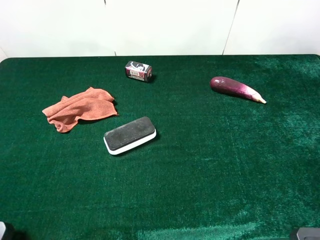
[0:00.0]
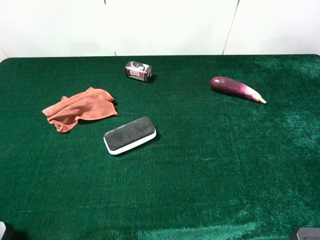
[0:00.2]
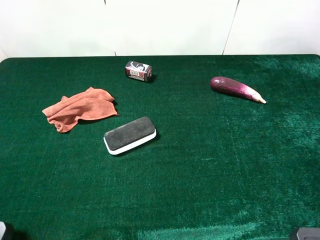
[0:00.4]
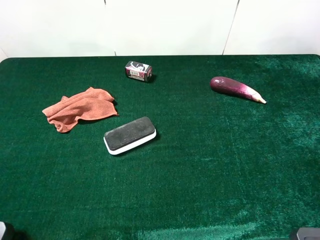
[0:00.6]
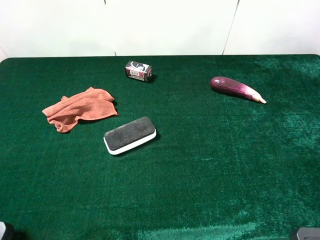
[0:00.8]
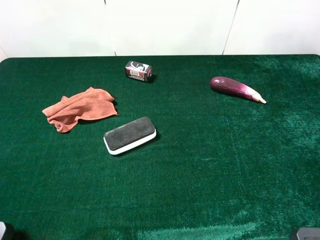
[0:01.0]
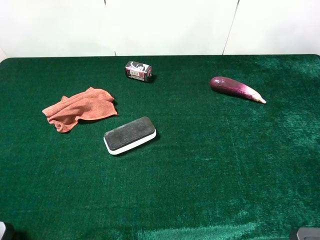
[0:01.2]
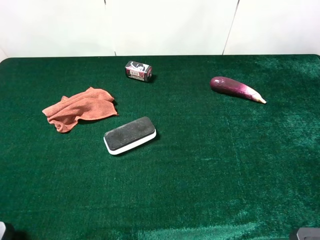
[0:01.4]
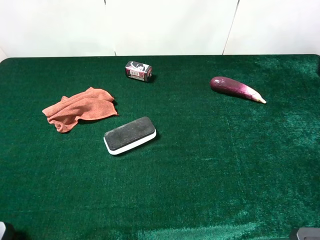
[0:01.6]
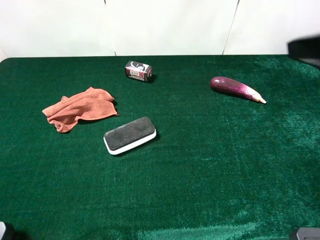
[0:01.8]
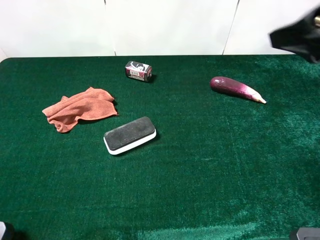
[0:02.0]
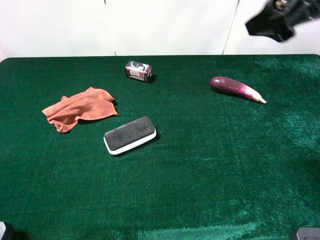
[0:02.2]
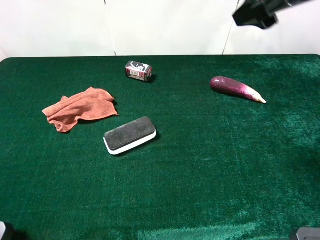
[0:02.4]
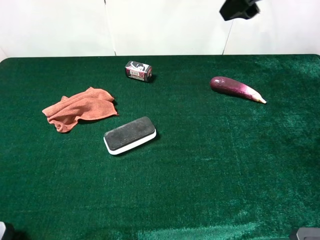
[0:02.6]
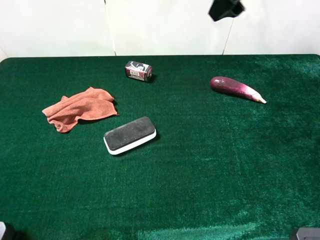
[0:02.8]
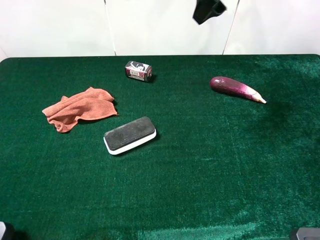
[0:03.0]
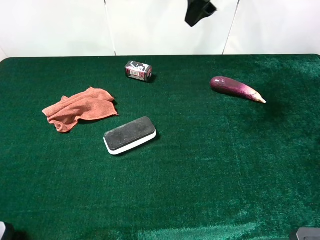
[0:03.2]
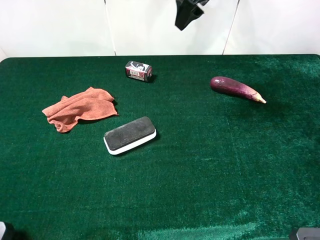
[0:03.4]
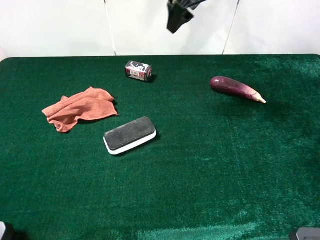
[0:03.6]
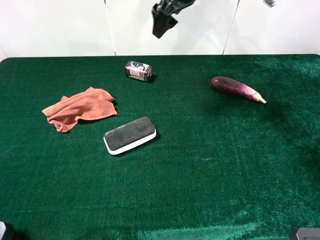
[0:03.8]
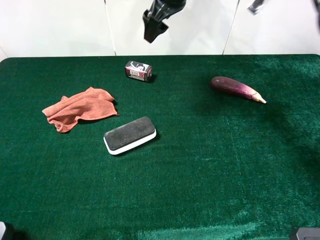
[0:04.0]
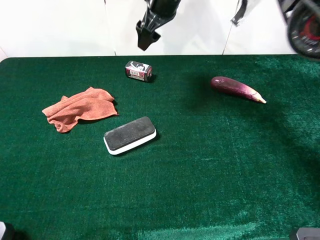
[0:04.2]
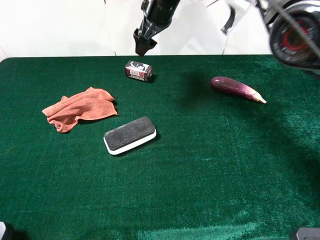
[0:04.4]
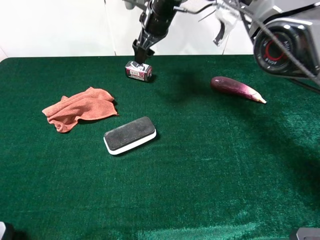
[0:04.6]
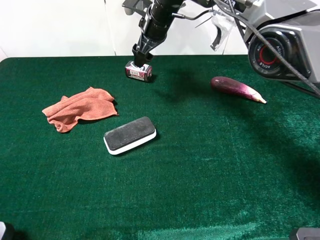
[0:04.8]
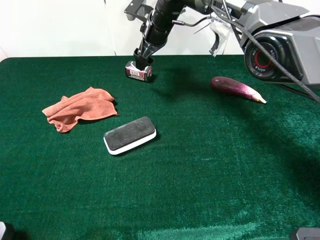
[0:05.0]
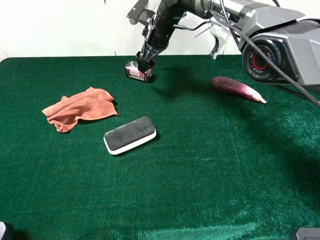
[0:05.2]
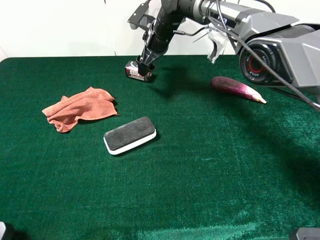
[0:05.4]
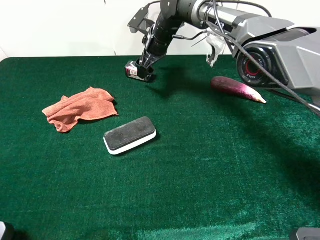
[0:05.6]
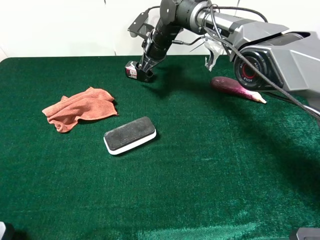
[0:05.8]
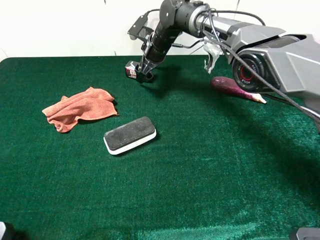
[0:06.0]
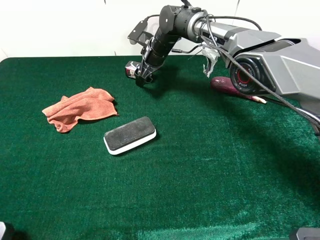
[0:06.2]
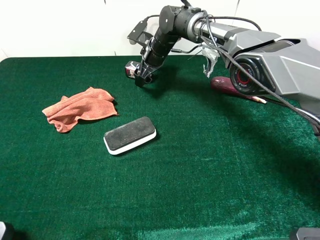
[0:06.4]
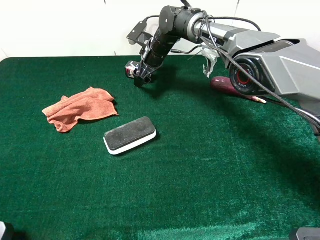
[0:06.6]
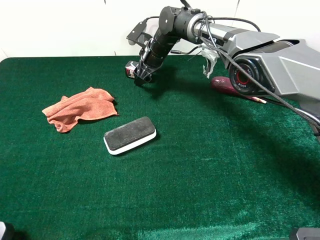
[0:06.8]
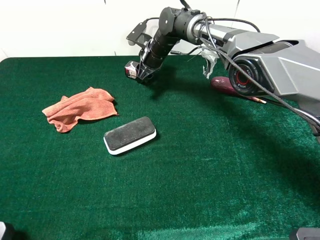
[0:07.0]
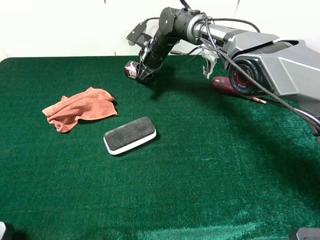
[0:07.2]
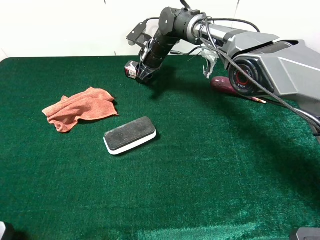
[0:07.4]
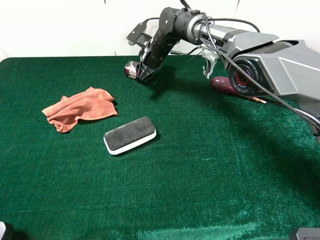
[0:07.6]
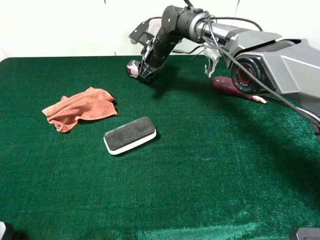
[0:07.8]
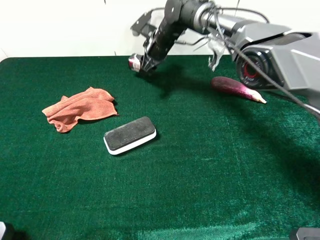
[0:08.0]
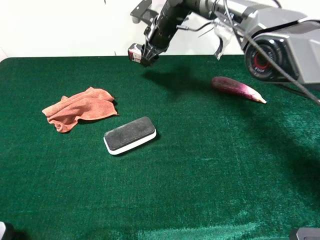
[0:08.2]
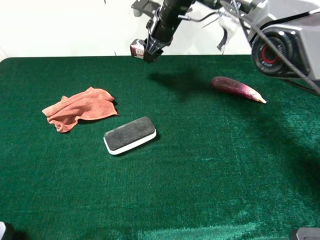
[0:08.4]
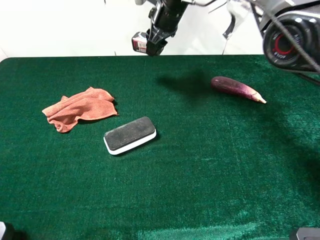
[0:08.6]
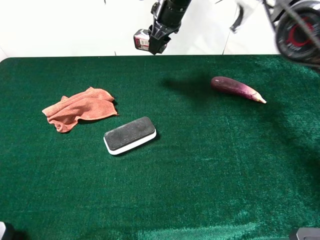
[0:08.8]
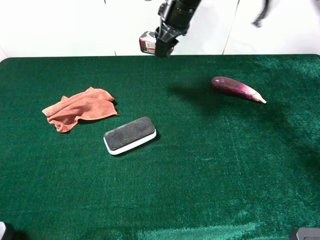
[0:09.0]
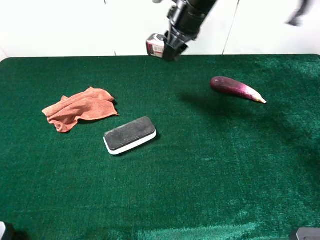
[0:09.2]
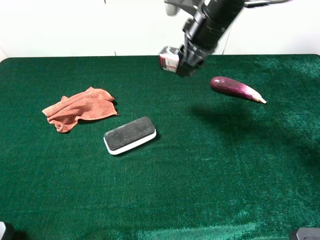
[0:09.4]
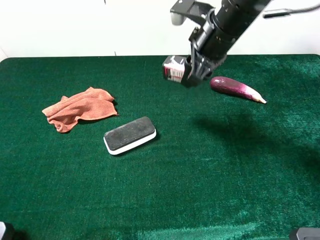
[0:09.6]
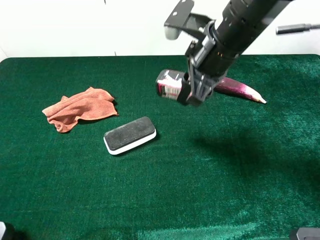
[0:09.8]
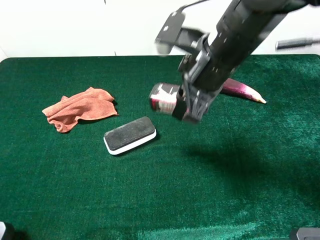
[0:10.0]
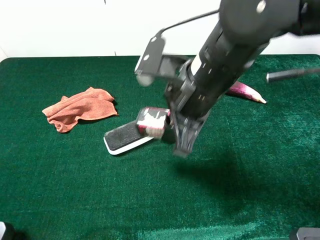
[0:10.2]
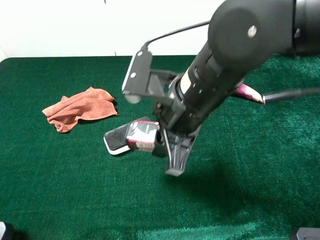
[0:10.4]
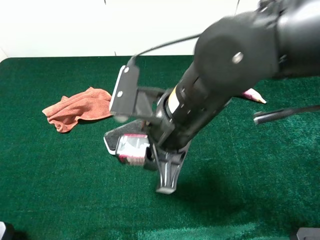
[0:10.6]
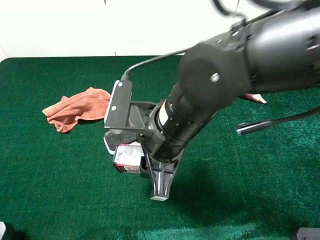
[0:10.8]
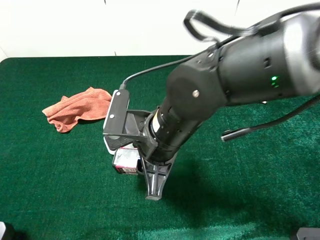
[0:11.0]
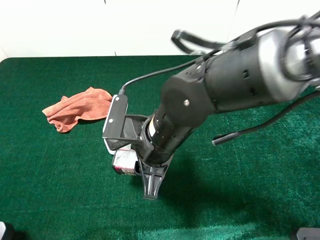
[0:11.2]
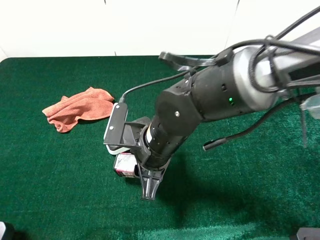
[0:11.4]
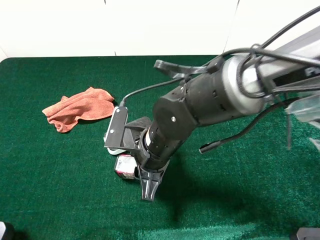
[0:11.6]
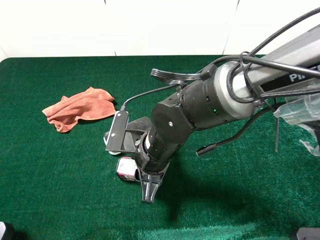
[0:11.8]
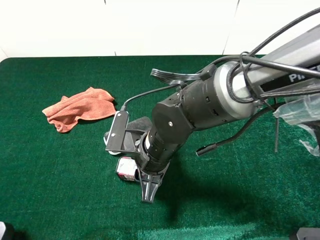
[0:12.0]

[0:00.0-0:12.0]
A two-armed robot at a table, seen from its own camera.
Task of the whole recording: the gripper move the object.
Step, 0:00.0 to 0:07.0: Grasp the square chewing gum with the right gripper.
0:01.6 to 0:03.0: The right gripper moves forward and to the left, approximately 30 cm.
0:03.0 to 0:04.4: The right gripper shifts about 20 cm to the left, downward and forward.
0:04.4 to 0:06.0: The right gripper goes about 10 cm downward.
0:06.0 to 0:07.6: The right gripper closes its fingers.
0:07.6 to 0:09.0: The right gripper moves upward and backward, approximately 15 cm.
0:09.0 to 0:10.4: The right gripper shifts approximately 25 cm backward.
0:10.4 to 0:12.0: The right gripper moves downward, roughly 10 cm.

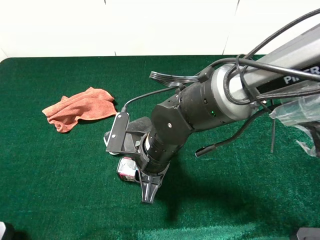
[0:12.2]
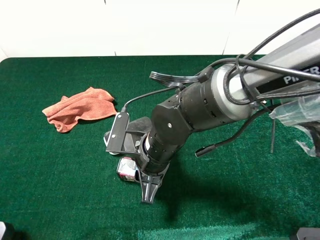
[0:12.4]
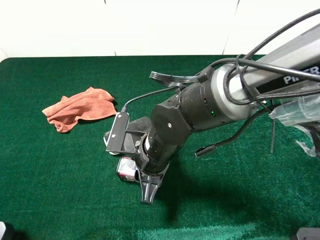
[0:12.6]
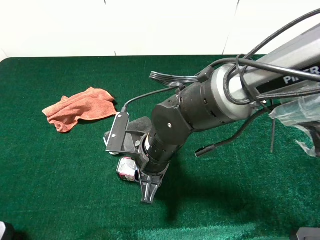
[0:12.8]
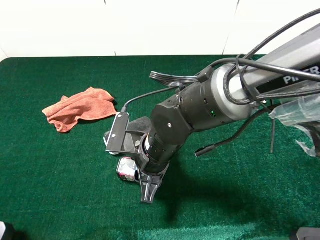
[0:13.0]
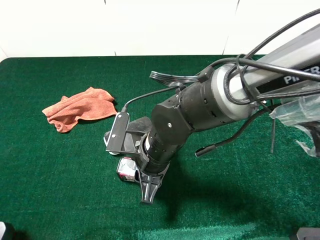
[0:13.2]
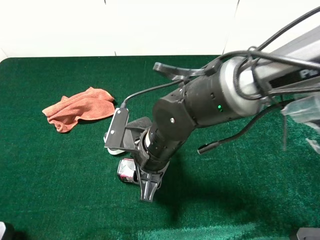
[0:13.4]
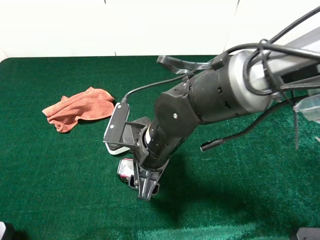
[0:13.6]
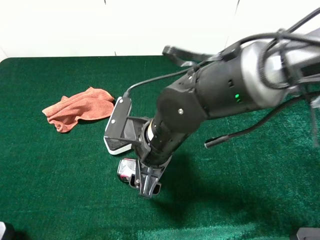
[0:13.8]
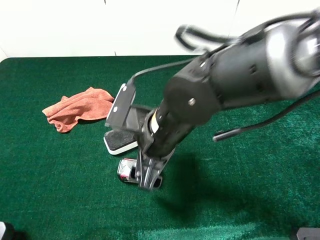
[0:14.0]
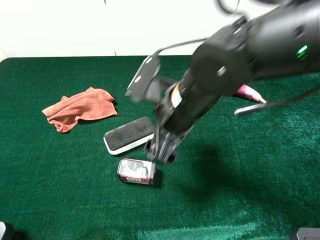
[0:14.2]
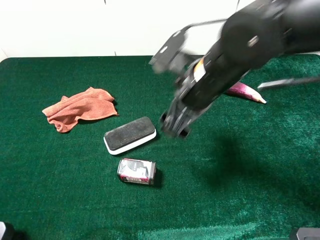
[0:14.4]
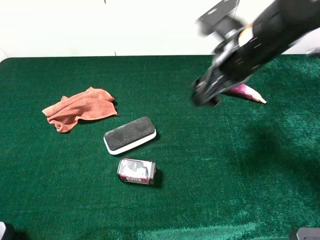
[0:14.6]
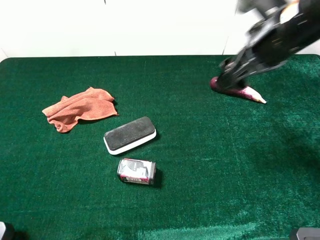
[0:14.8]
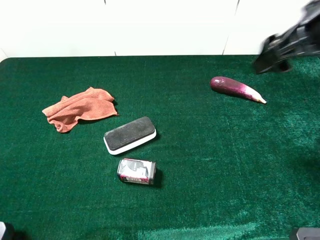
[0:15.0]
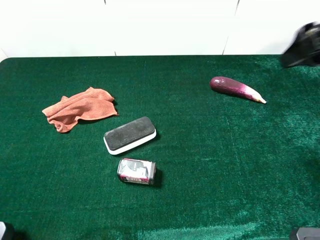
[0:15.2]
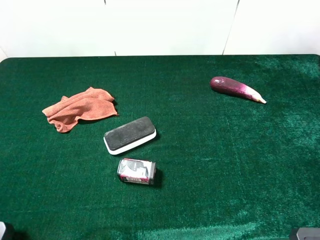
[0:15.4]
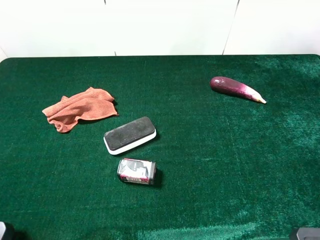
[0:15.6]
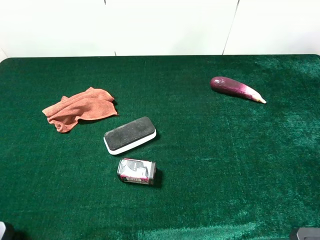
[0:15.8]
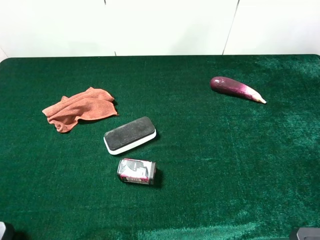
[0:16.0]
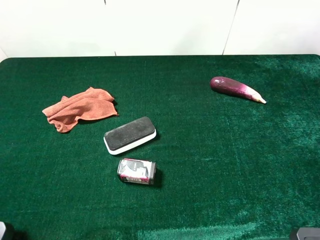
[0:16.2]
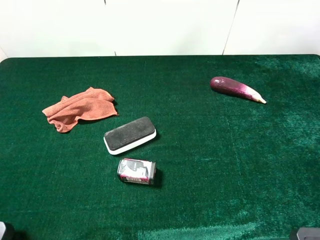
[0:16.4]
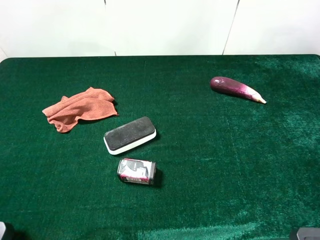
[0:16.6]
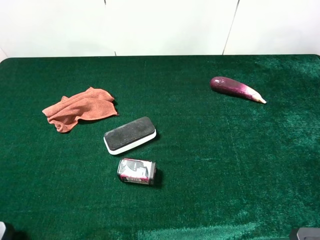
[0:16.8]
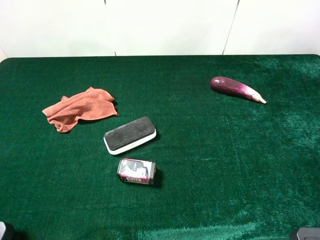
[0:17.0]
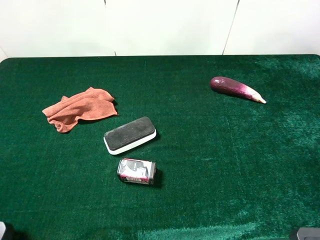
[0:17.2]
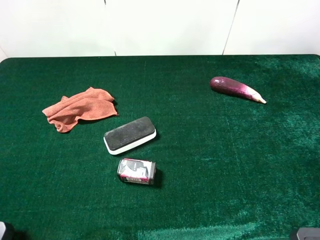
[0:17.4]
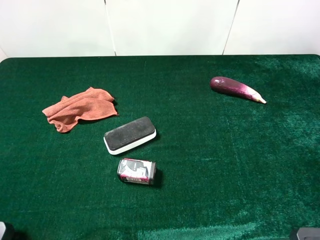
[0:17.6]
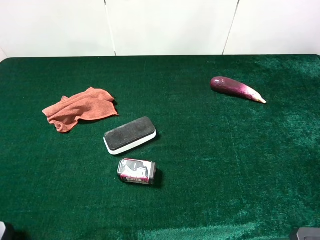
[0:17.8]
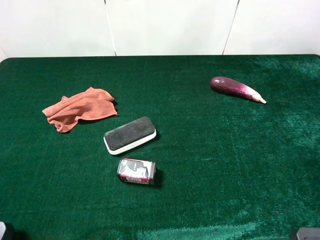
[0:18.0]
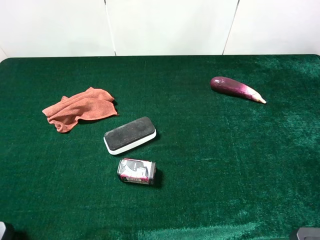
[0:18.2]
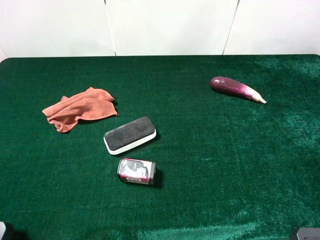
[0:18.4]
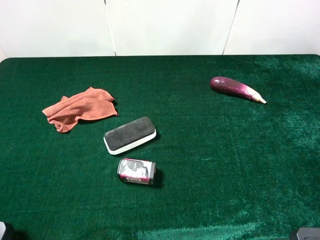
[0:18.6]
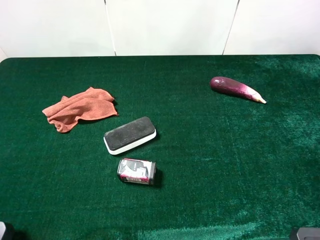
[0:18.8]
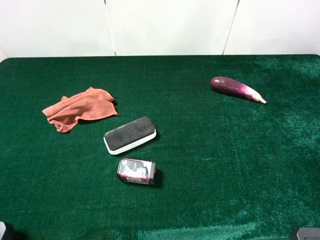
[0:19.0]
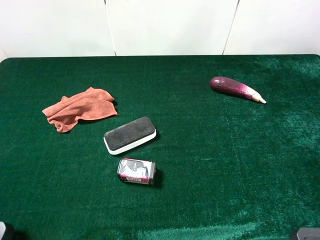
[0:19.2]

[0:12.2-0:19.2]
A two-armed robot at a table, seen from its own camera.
Task of the whole recording: the gripper move the object.
0:12.2 to 0:13.6: The right gripper opens its fingers.
0:13.6 to 0:15.0: The right gripper goes some 30 cm to the right and upward.
0:15.0 to 0:16.4: The right gripper goes about 25 cm backward.
0:17.8 to 0:19.2: The two grippers keep their place.

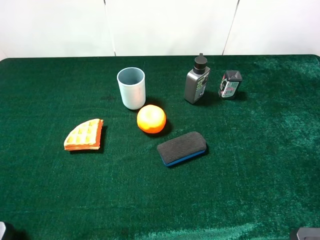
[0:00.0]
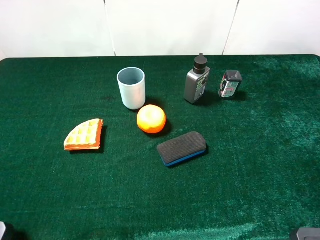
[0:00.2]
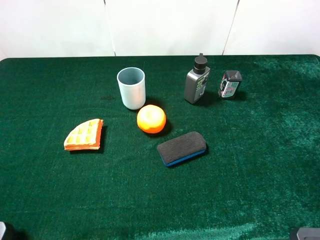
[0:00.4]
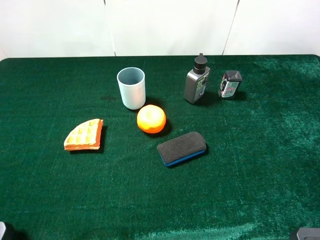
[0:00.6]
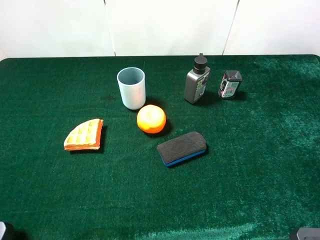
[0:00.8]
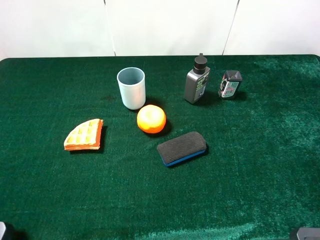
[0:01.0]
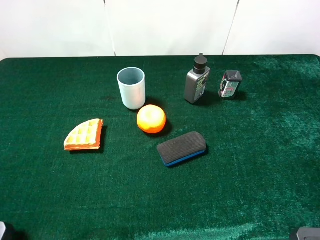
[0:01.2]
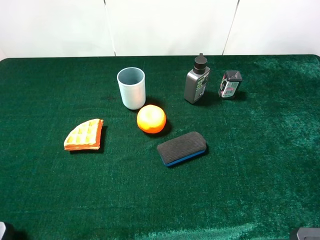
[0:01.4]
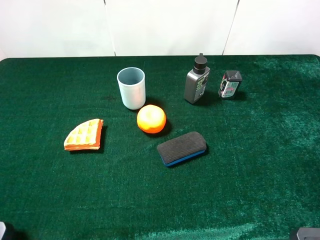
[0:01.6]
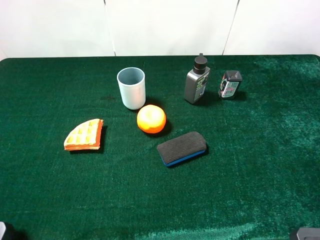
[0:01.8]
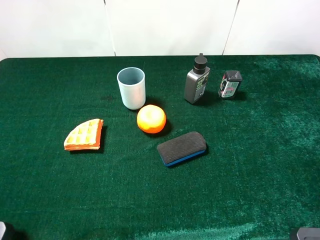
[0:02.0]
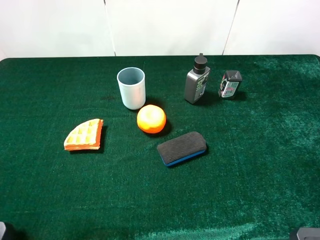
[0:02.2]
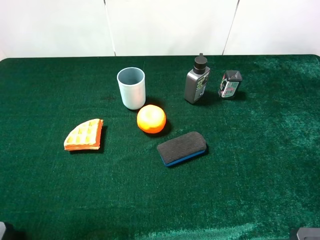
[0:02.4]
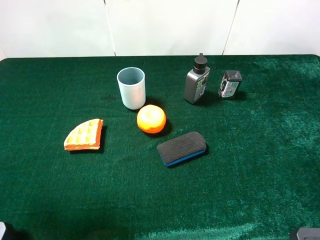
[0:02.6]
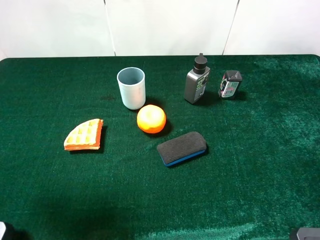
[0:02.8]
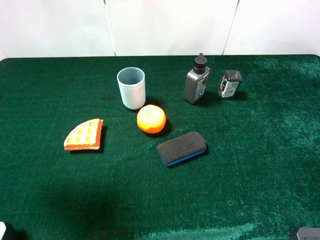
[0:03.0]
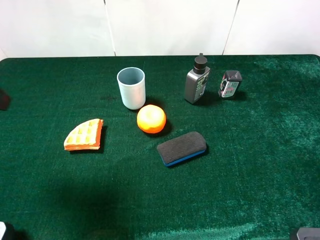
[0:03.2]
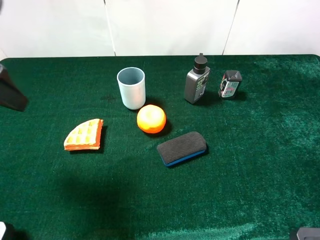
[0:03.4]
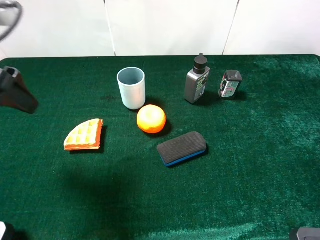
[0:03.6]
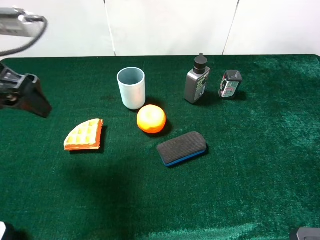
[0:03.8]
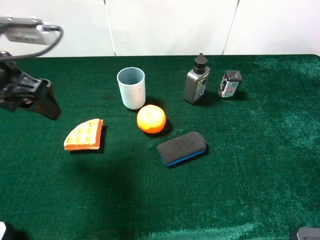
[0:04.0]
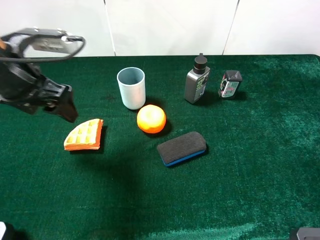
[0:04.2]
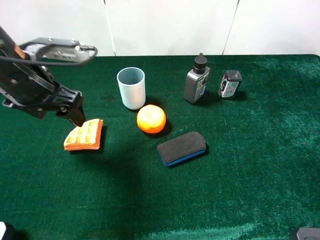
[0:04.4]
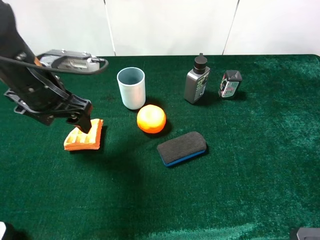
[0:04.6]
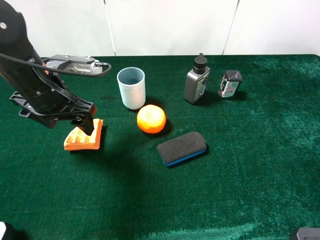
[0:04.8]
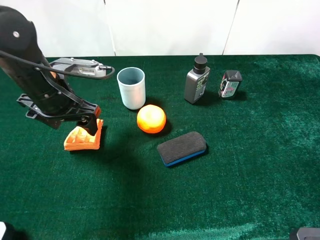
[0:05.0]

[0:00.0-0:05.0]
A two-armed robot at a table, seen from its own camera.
Task of the whole recording: the gripper move the object.
0:00.0 to 0:01.6: The two grippers keep their place.
0:01.6 to 0:03.4: The left gripper heads forward, covering roughly 20 cm.
0:03.4 to 0:05.0: The left gripper goes roughly 15 cm downward, to the right and forward.
